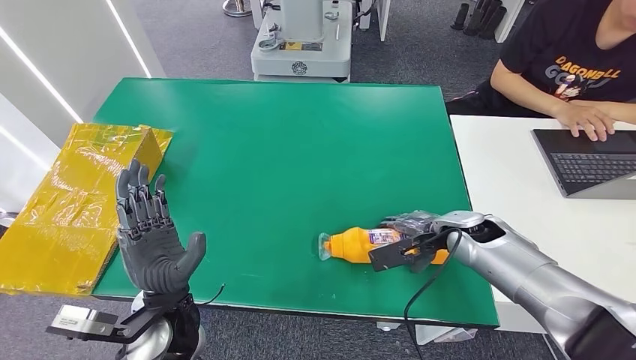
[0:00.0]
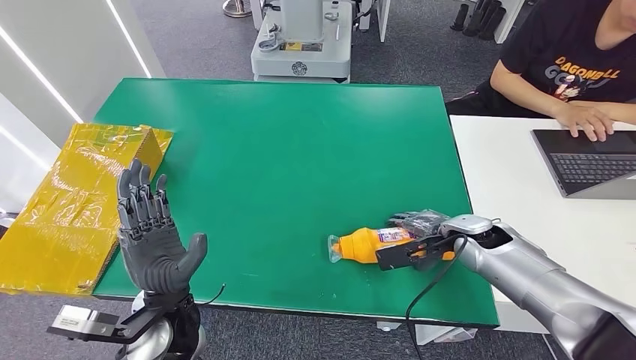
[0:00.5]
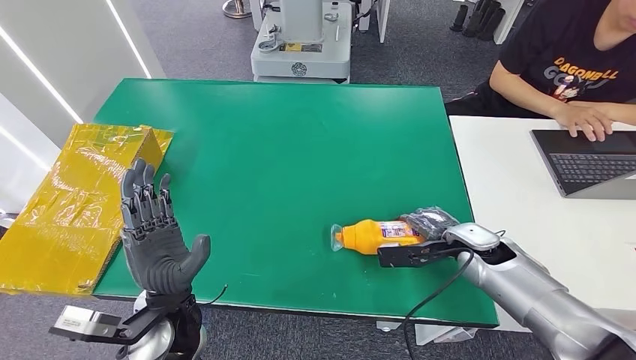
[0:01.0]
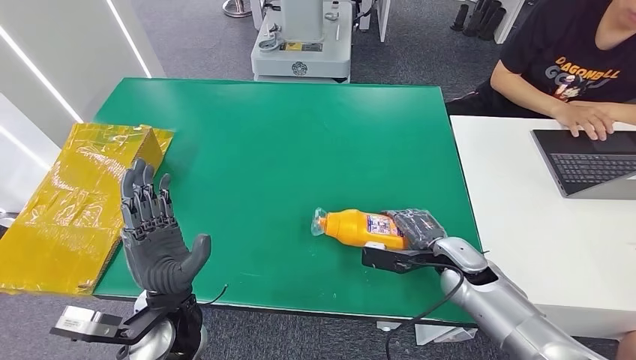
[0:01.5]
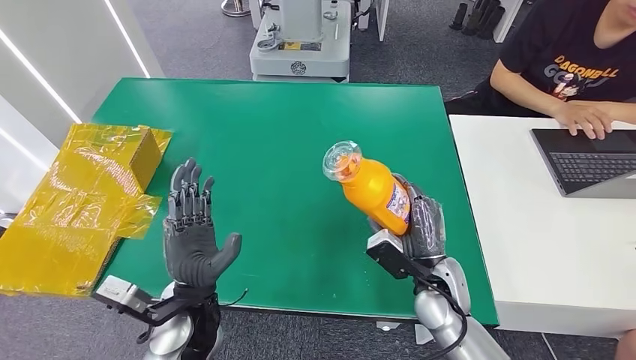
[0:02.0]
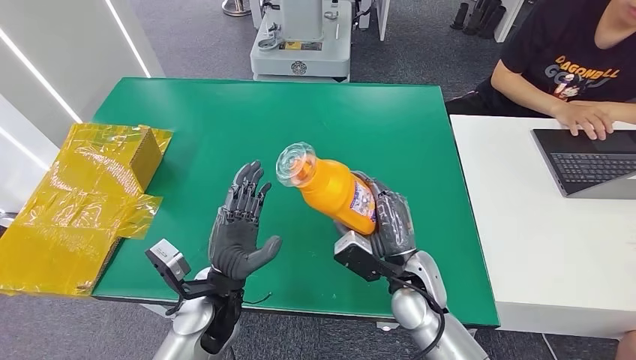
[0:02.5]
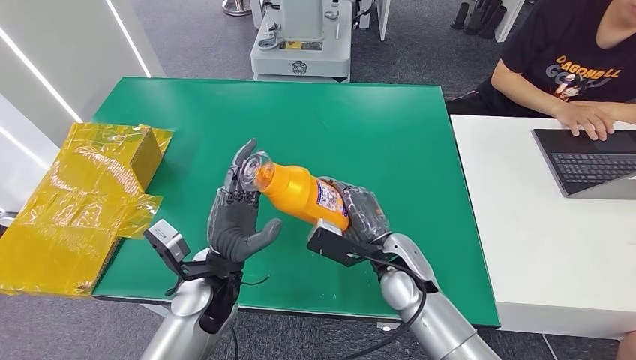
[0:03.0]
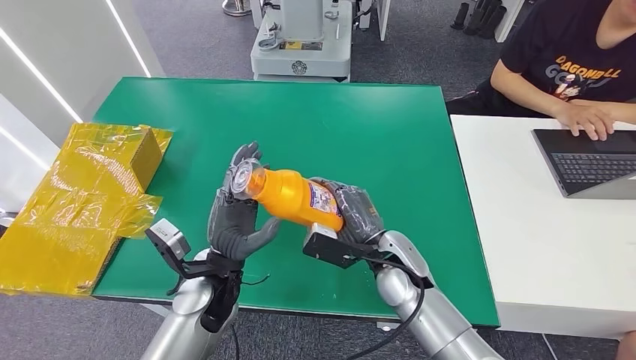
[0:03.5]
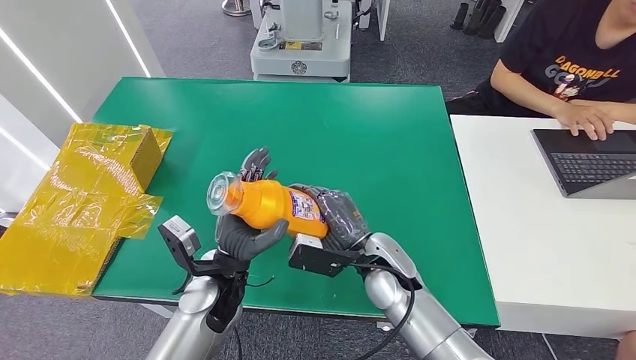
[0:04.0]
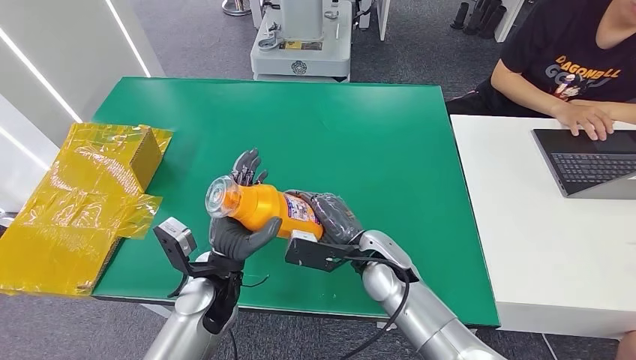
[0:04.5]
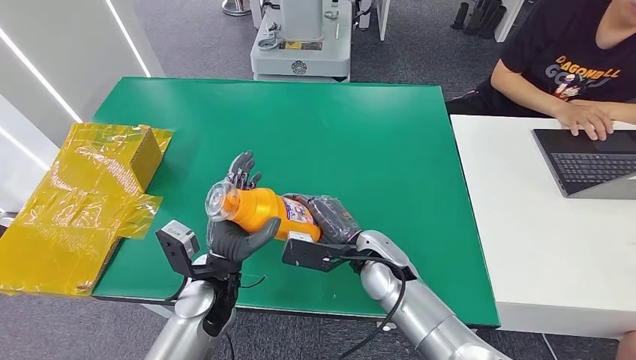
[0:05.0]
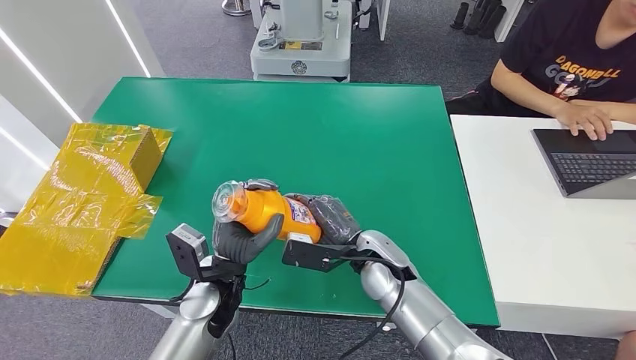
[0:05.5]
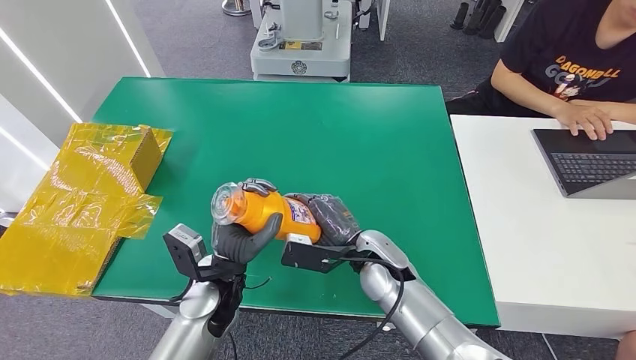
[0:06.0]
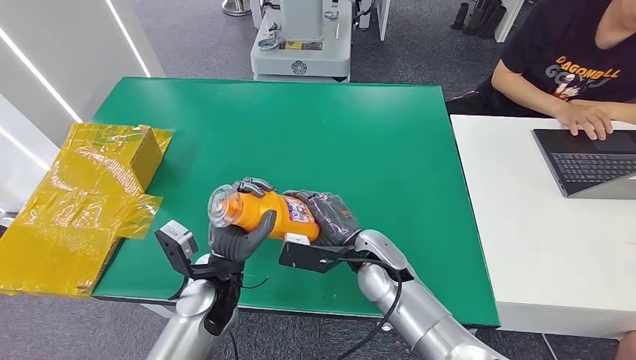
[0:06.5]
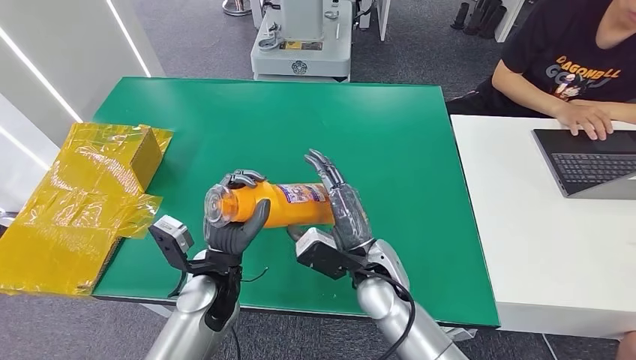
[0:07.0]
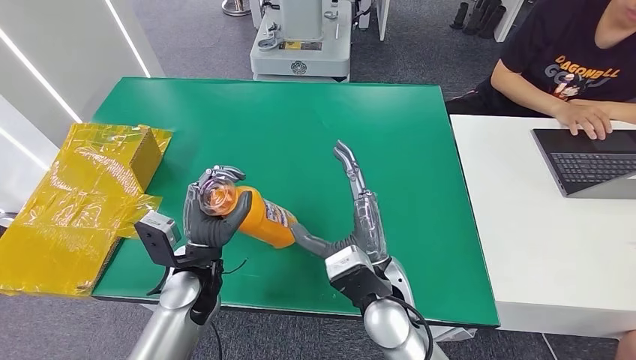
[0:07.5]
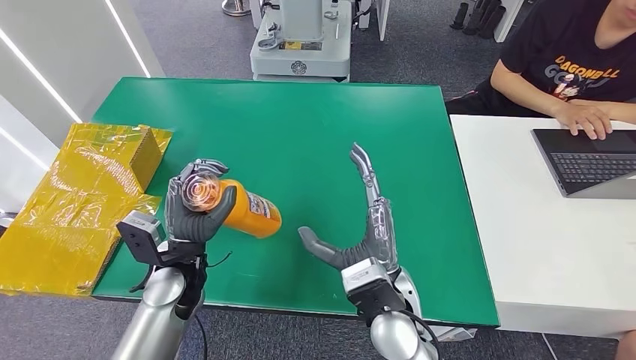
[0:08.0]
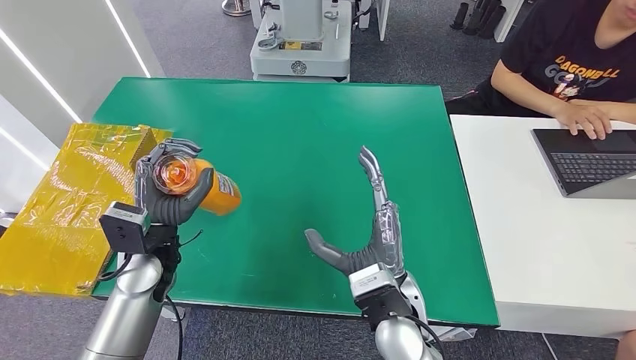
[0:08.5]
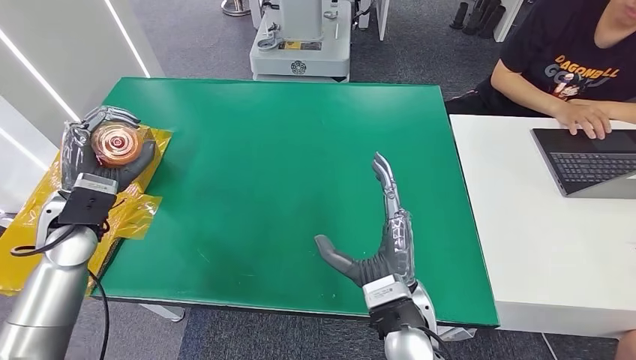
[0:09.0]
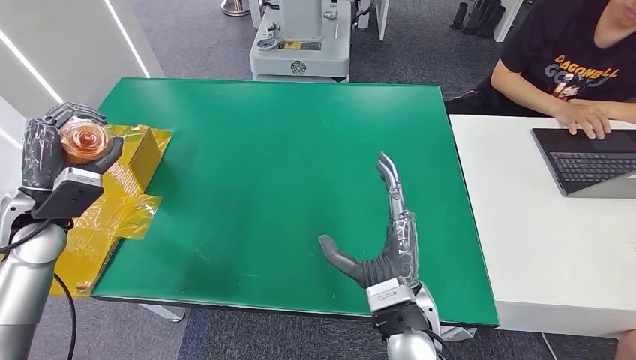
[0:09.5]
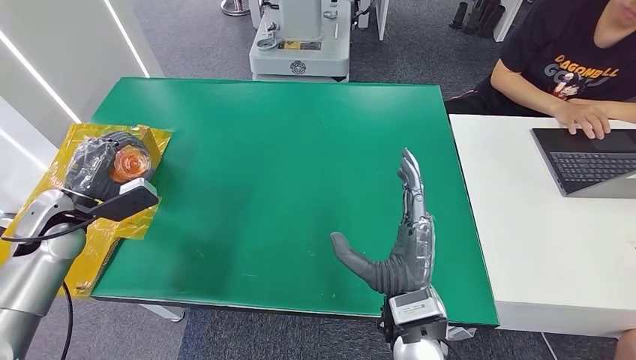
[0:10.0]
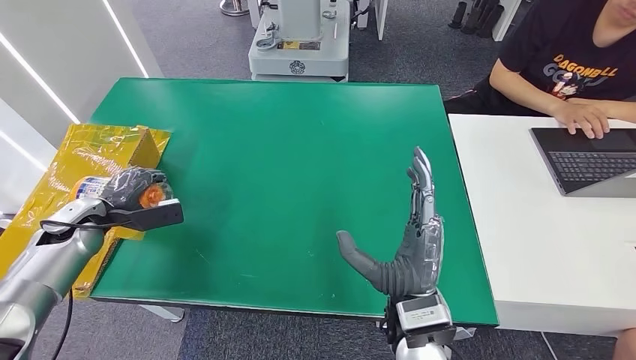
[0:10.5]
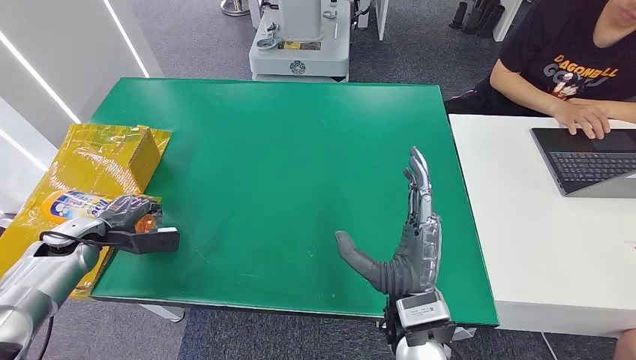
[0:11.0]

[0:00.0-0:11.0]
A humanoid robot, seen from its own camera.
Step, 0:00.0 to 0:02.5: Pick up the bottle from the table.
0:02.0 to 0:03.5: The right hand goes some 10 cm to the left.
0:03.5 to 0:05.5: The hands stay close to where they were, moving slightly.
0:05.5 to 0:07.5: The right hand moves backward, some 5 cm.
0:07.5 to 0:09.0: The left hand goes some 20 cm to the left and upward.
0:09.0 to 0:11.0: The left hand is displaced to the left and downward by roughly 15 cm.

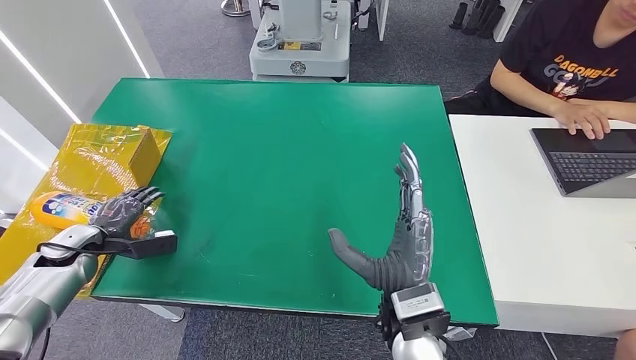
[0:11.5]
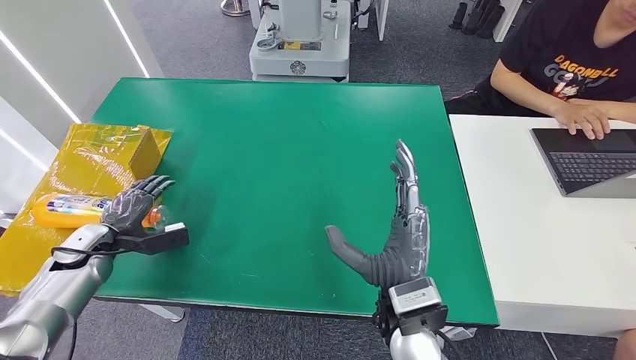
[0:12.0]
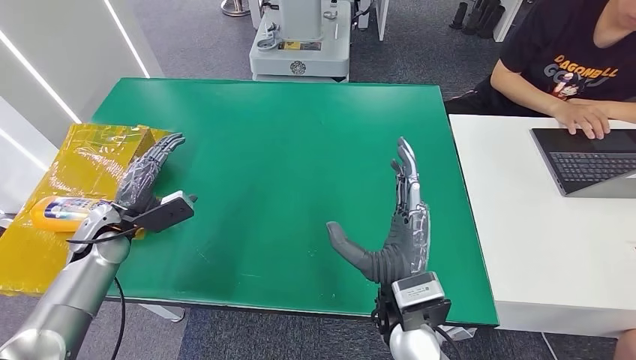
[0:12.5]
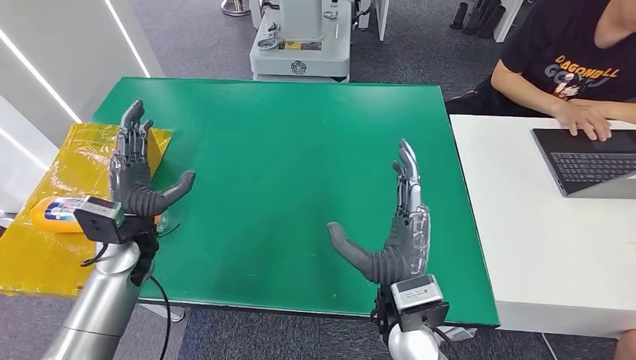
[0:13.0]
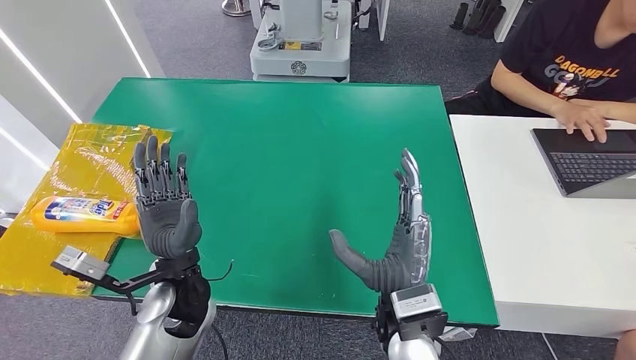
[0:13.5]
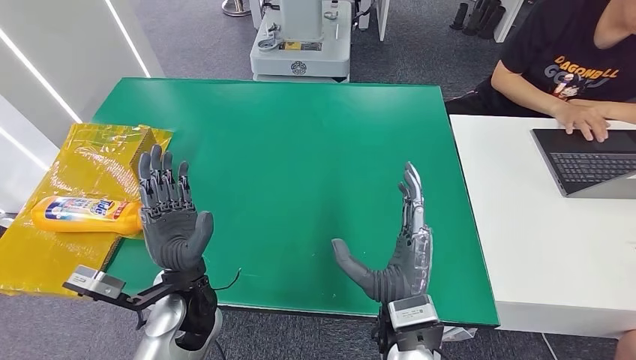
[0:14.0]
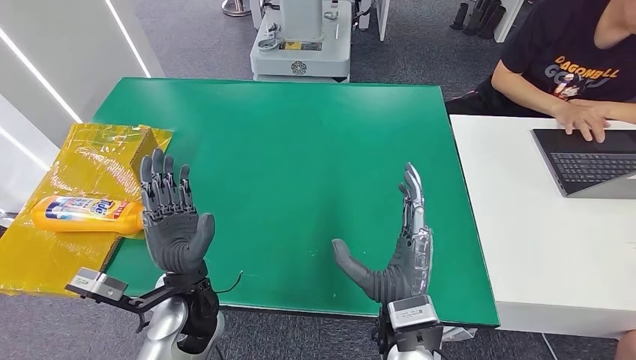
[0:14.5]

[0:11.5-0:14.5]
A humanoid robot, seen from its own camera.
Step, 0:11.5 to 0:14.5: Turn the bottle to the front side.
0:11.5 to 0:13.0: The left hand is displaced to the right by approximately 20 cm.
0:13.0 to 0:14.5: The left hand heads to the right and backward, covering approximately 15 cm.
